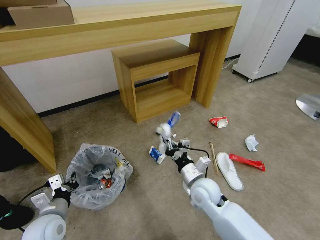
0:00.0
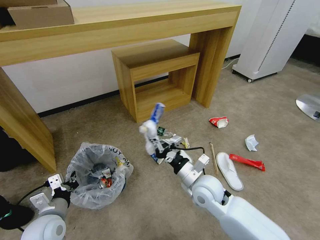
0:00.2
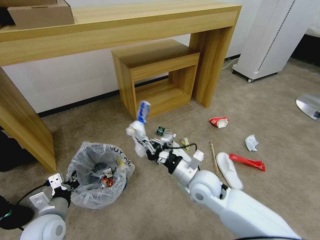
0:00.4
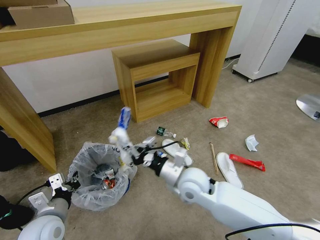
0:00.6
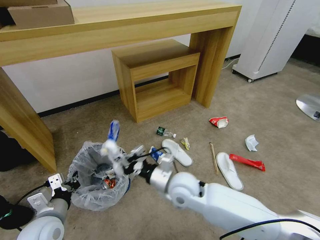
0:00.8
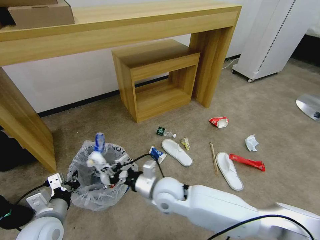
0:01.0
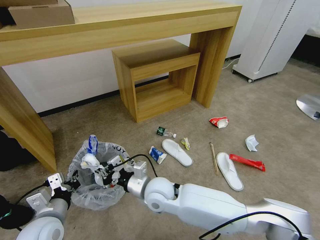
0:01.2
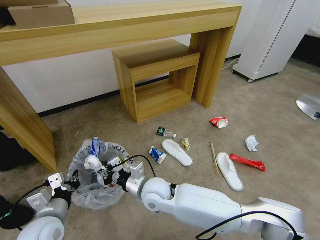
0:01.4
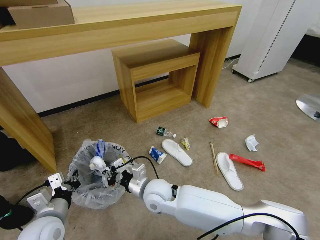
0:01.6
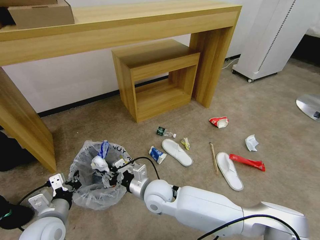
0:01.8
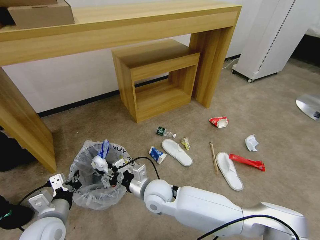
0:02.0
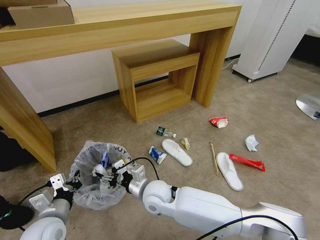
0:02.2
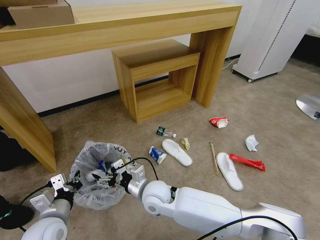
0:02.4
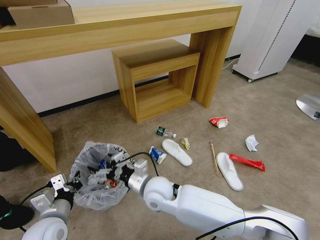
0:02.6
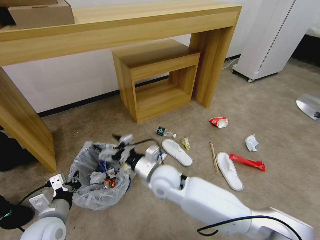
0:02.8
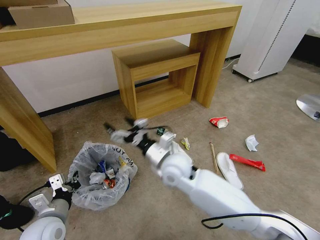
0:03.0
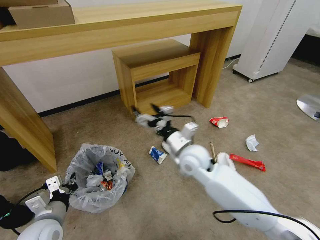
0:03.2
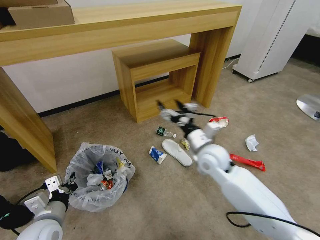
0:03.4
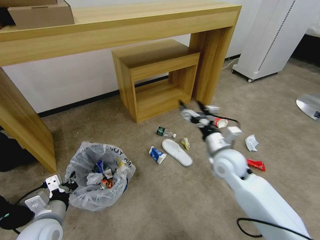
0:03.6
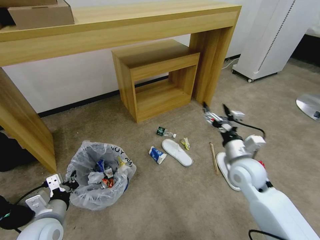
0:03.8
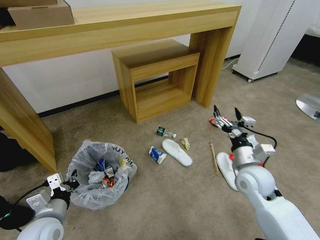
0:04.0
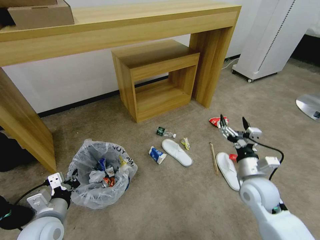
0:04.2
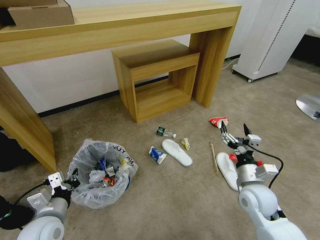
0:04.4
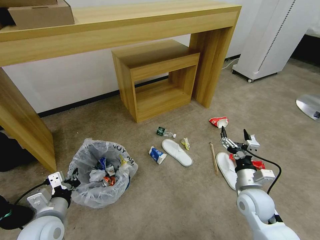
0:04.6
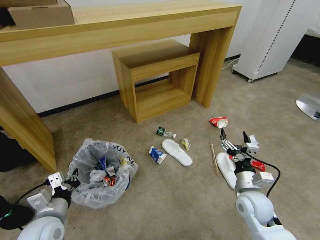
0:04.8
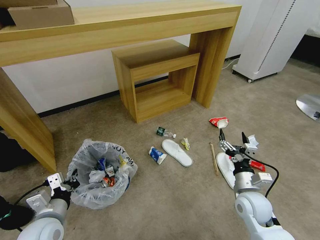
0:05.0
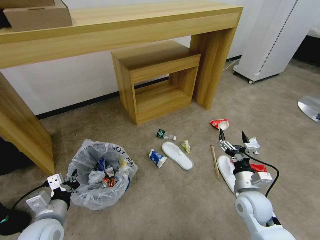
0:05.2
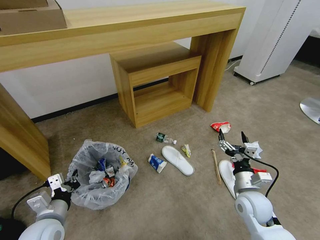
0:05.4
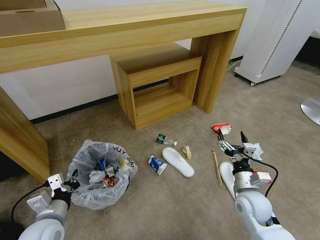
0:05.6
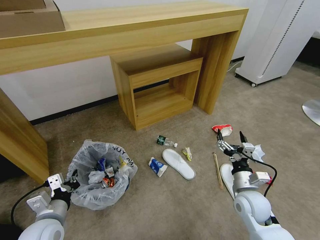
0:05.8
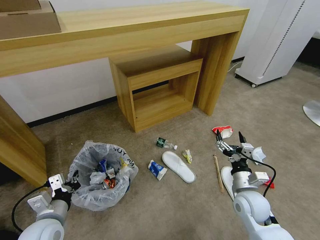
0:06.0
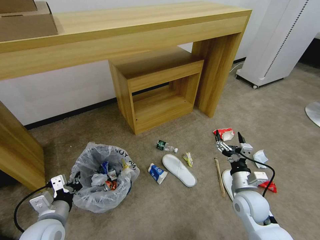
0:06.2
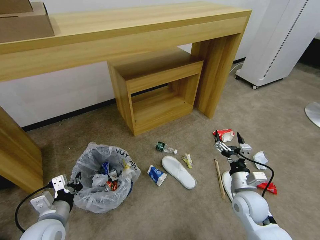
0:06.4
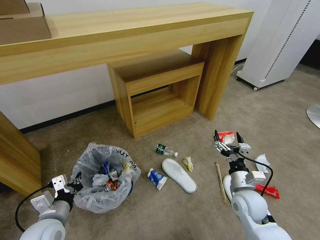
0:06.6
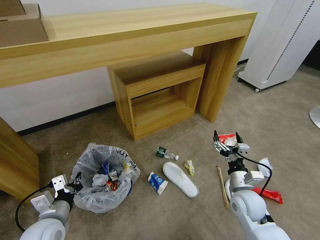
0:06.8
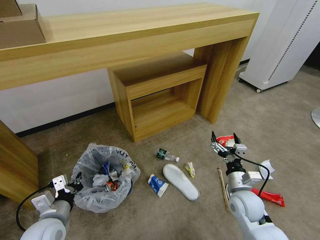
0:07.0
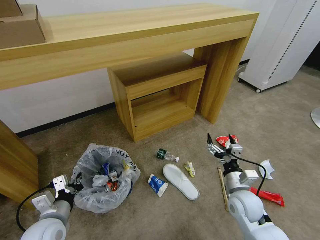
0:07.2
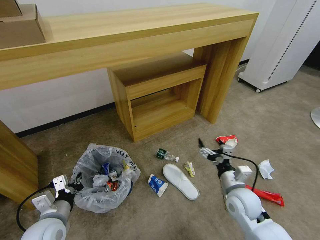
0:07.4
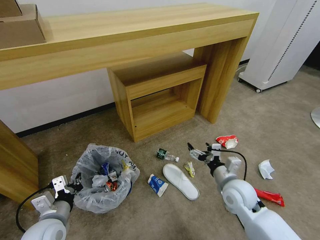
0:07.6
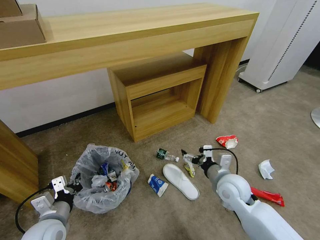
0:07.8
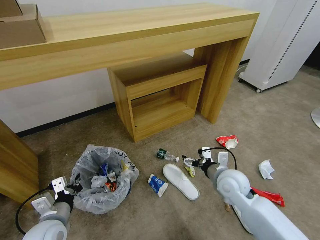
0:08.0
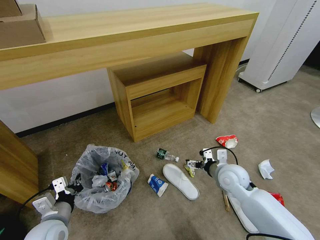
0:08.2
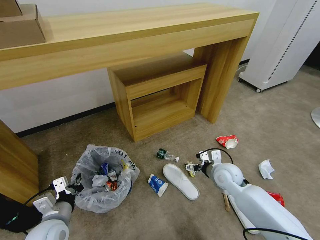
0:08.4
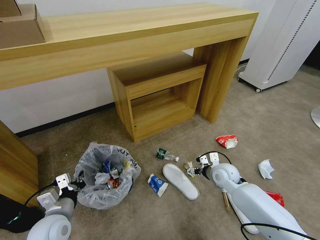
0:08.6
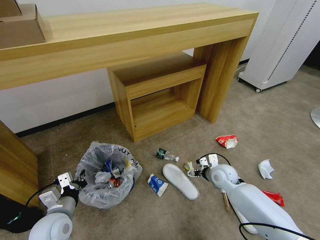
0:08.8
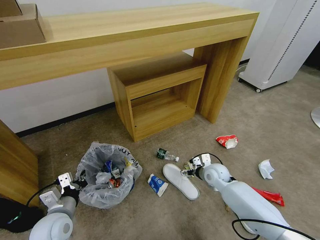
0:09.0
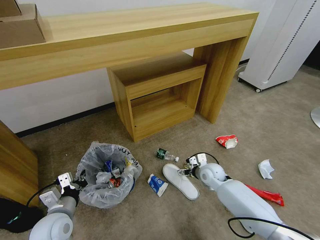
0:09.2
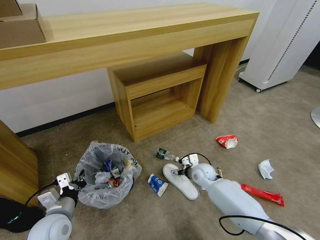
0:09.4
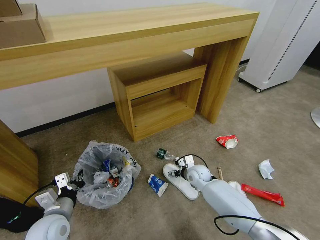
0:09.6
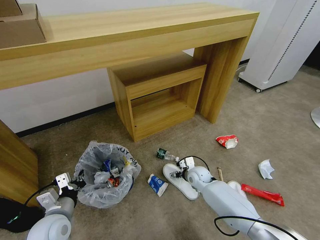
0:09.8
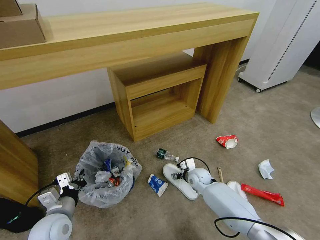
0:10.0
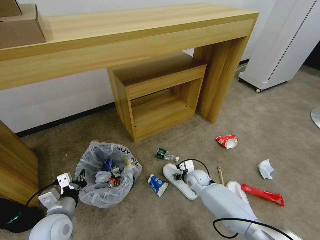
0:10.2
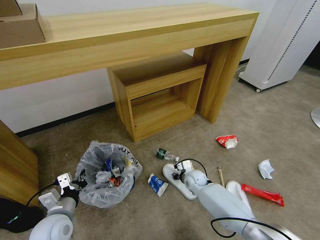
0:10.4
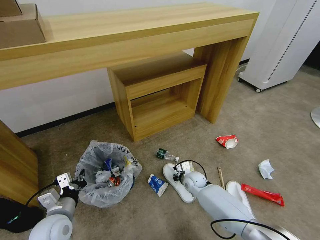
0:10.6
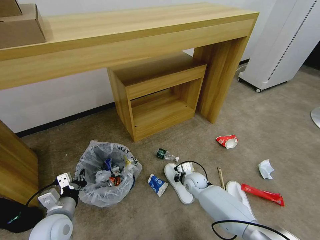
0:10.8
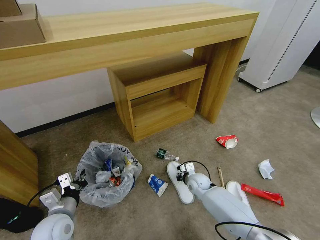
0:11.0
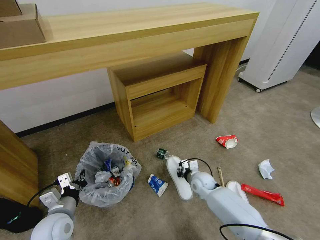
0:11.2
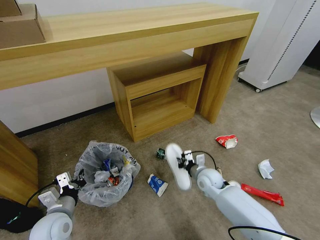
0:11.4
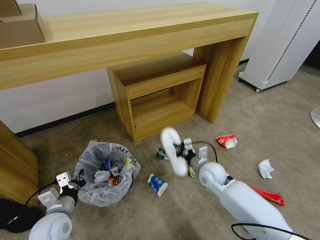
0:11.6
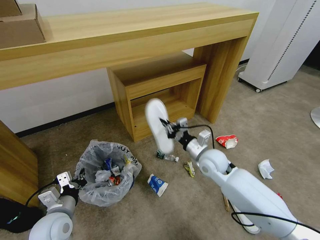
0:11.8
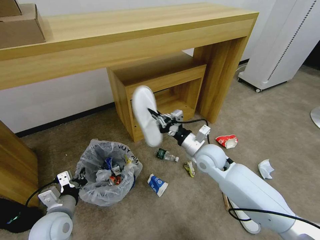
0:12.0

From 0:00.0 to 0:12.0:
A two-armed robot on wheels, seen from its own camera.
Task of the whole recording: Pick up the trash bin and place the garbage on the floor into it.
From 0:00.0 to 0:01.6: The right gripper goes about 15 cm to the left.
From 0:01.6 to 0:03.0: The right gripper heads upward, covering some 5 cm, and opens.
From 0:03.0 to 0:04.4: The right gripper is displaced to the right by about 25 cm.
From 0:07.6 to 0:09.0: The right gripper heads forward and downward, covering roughly 15 cm.
From 0:09.0 to 0:10.4: The right gripper travels downward and to the left by about 10 cm, and closes.
From 0:10.4 to 0:12.0: The right gripper goes roughly 20 cm upward, and closes.

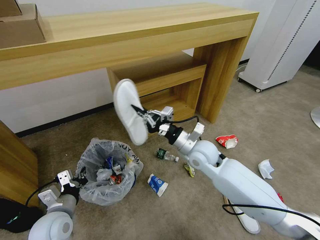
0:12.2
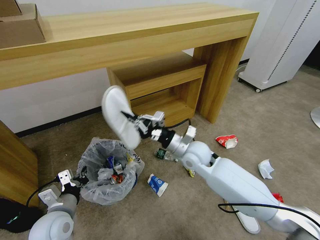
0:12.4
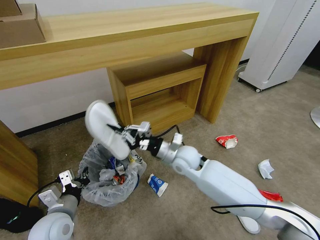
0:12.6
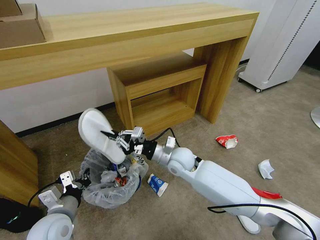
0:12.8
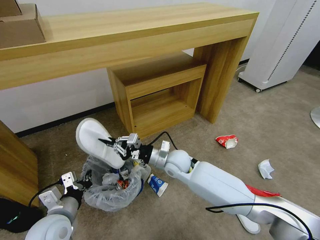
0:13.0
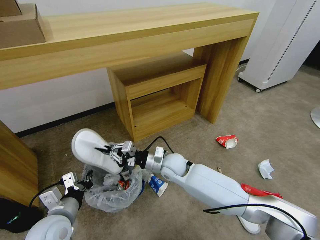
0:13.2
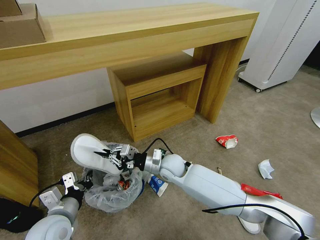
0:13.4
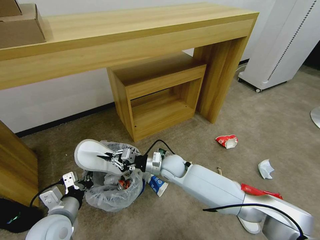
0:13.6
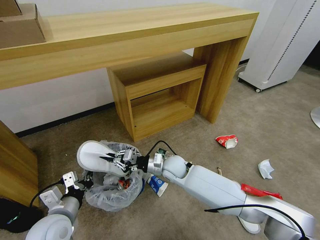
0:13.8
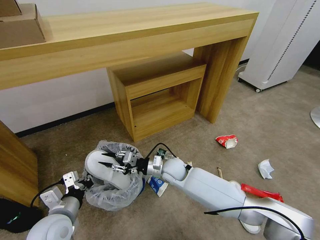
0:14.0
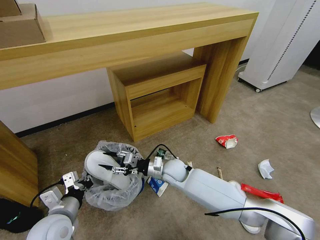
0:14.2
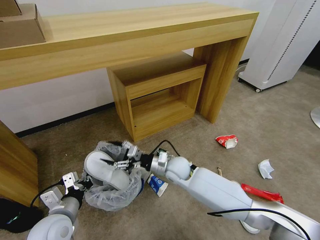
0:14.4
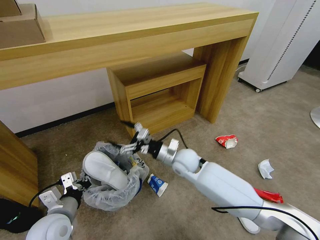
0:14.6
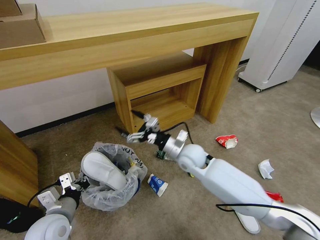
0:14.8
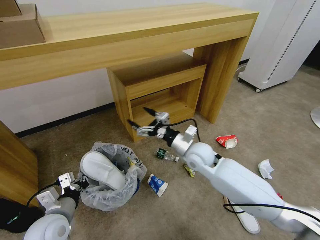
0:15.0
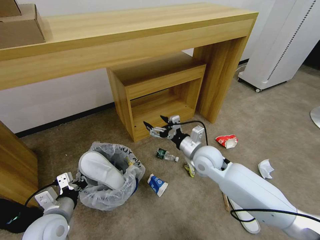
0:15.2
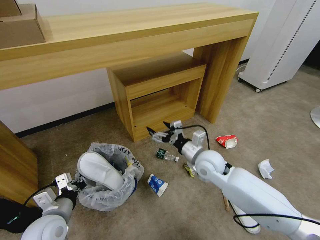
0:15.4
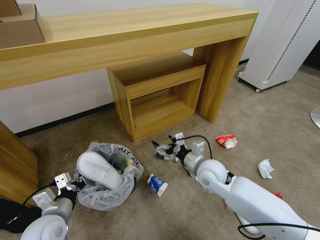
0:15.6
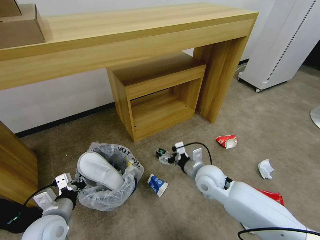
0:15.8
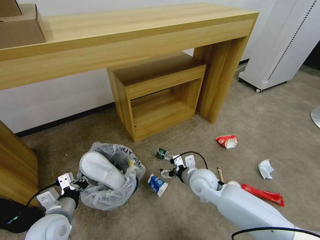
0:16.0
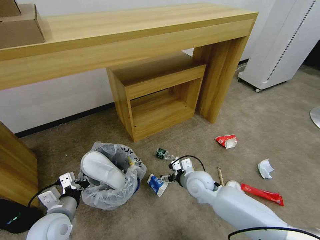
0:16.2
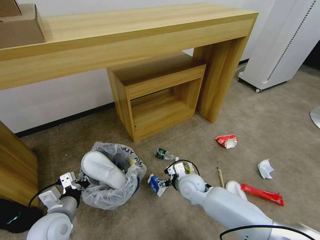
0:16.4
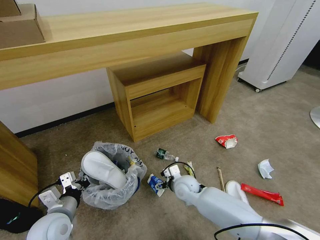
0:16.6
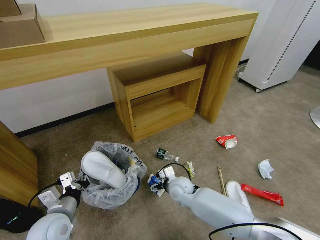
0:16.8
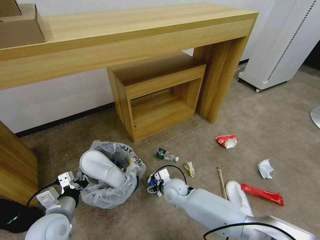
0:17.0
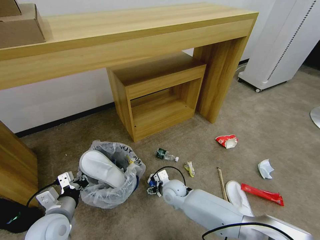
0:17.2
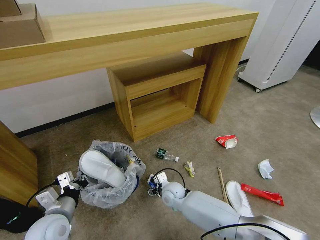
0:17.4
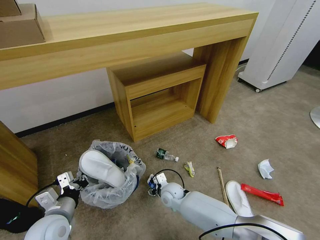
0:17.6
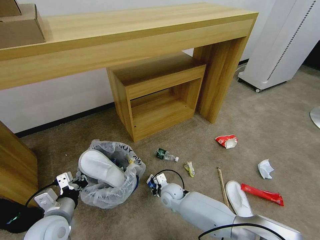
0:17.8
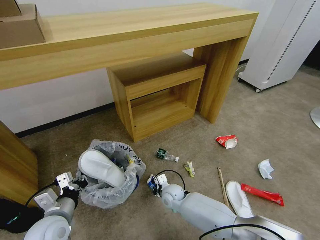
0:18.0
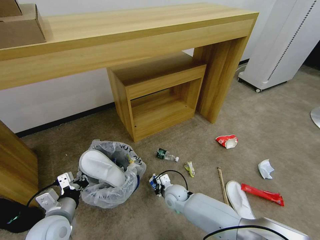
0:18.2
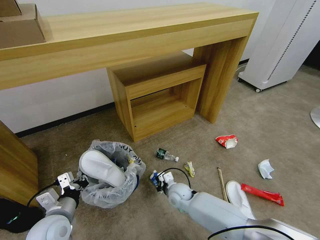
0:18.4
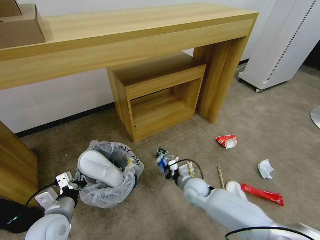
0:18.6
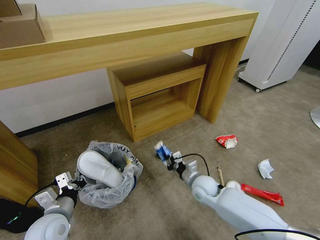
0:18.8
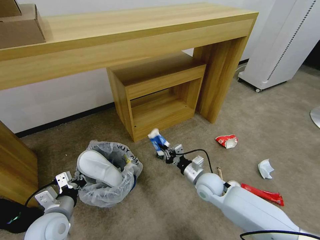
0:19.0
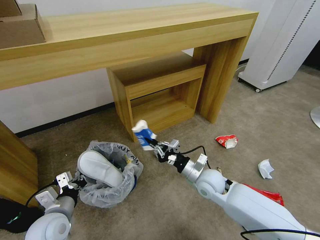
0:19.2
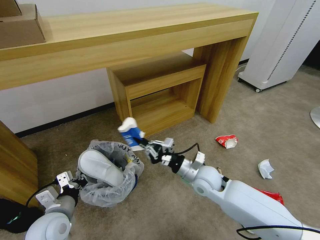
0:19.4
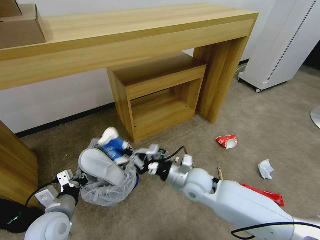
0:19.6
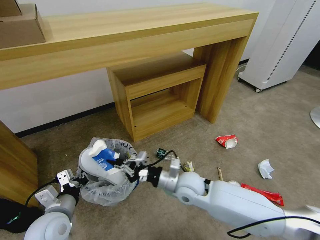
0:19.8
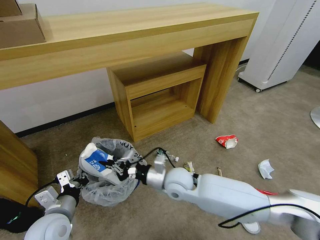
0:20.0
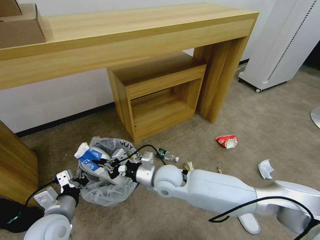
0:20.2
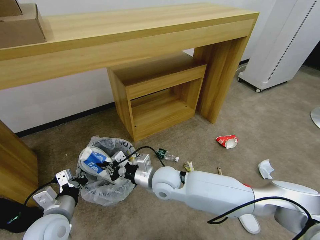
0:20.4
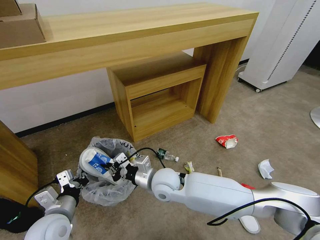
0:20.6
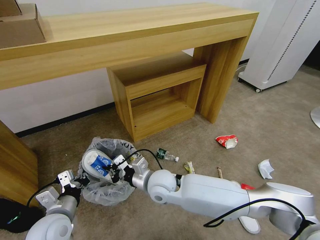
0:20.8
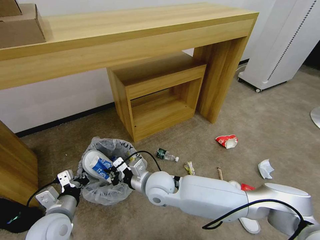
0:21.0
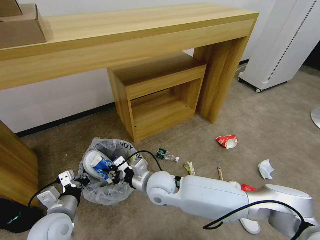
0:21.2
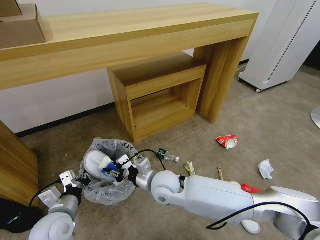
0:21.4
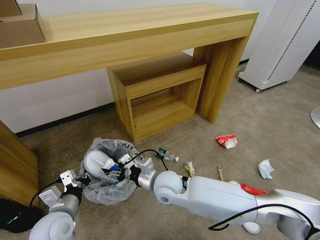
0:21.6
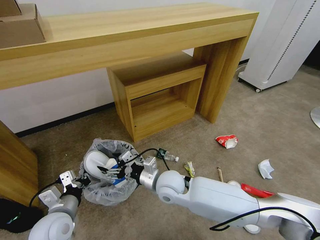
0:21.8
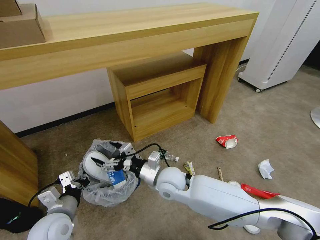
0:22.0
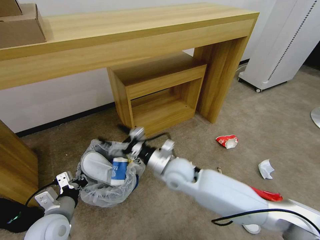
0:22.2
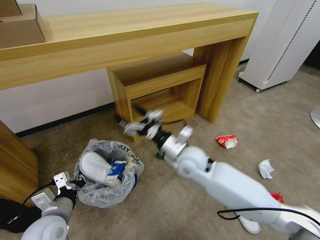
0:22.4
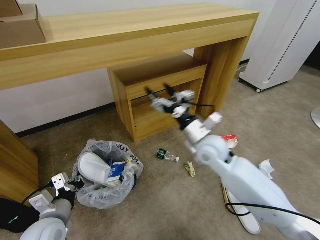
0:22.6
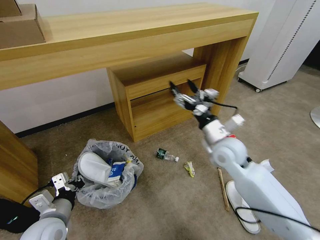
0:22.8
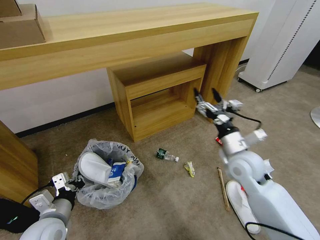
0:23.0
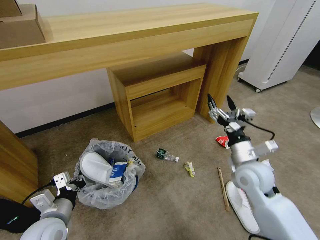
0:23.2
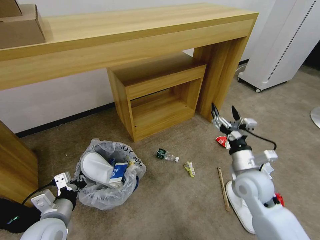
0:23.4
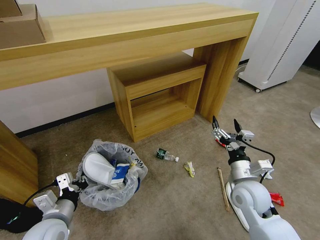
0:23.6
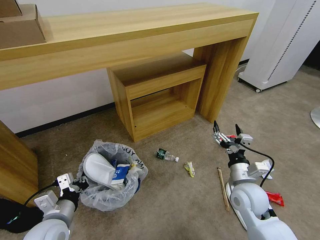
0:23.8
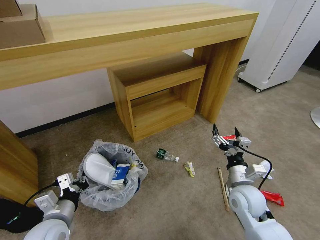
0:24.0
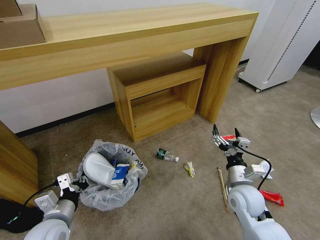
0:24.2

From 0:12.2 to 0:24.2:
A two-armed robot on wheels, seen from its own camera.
Task of the whole recording: Pick up the trash bin and place the garbage on the floor into it.
From 0:12.2 to 0:13.8: The right gripper is displaced downward and to the left by about 15 cm.
From 0:13.8 to 0:15.2: The right gripper heads to the right and upward, covering about 15 cm, and opens its fingers.
From 0:15.2 to 0:16.6: The right gripper is displaced downward by roughly 15 cm.
From 0:16.6 to 0:18.2: The right gripper travels downward by about 5 cm, and closes its fingers.
From 0:18.2 to 0:19.8: The right gripper shifts approximately 15 cm upward.
From 0:19.8 to 0:21.2: The right gripper travels to the left by about 10 cm.
From 0:21.2 to 0:22.6: The right gripper goes some 20 cm to the right, upward and forward, and opens up.
From 0:22.6 to 0:24.2: The right gripper goes approximately 20 cm downward, backward and to the right.
